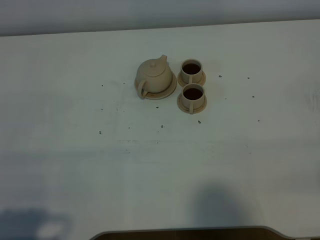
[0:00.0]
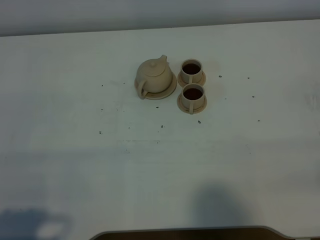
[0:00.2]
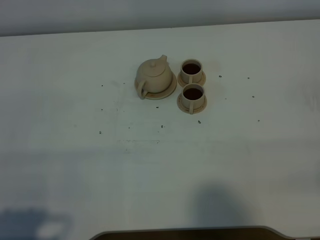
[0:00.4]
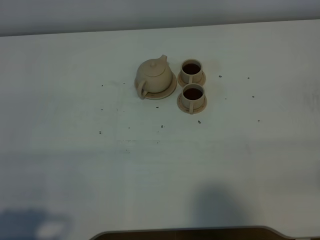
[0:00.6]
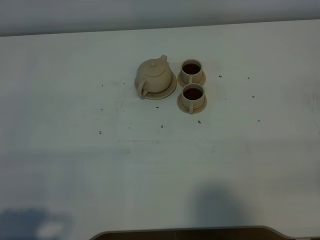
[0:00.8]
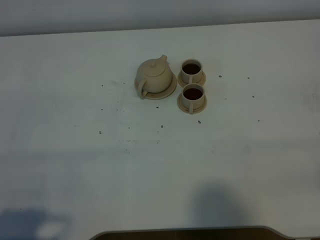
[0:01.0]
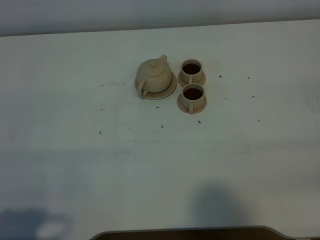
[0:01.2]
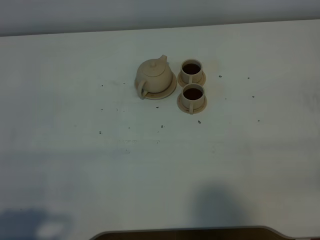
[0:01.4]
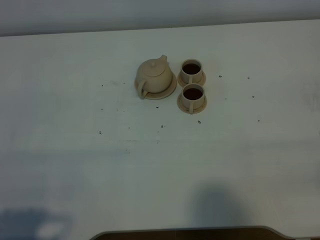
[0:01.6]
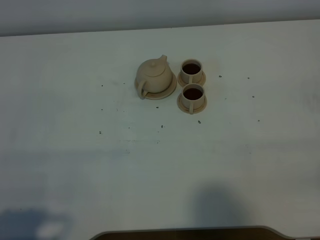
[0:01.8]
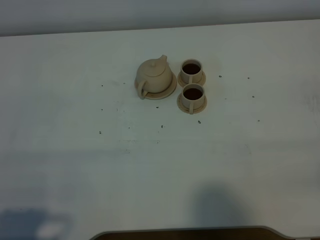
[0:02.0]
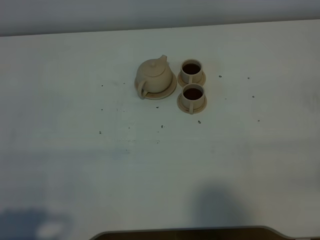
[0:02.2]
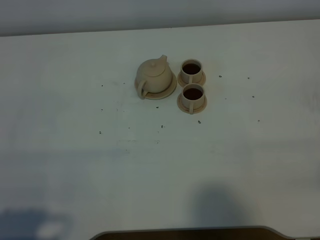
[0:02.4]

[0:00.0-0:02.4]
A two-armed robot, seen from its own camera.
Task of the whole recording: grasp the brown teapot and pour the tea into the two brown teacups one by one, put the brown teapot back in its original place.
0:00.0 to 0:02.4: Both grippers stay about where they are.

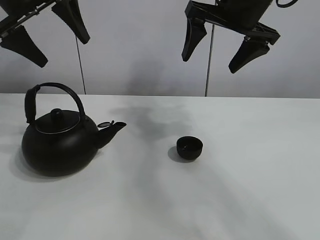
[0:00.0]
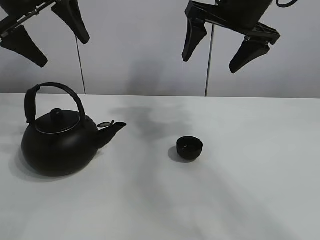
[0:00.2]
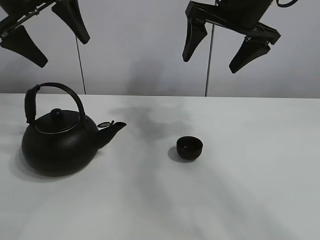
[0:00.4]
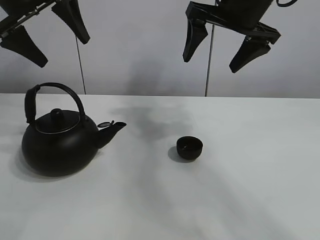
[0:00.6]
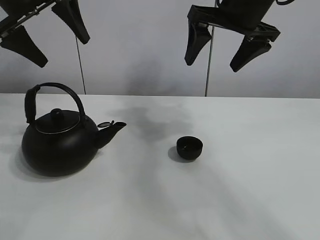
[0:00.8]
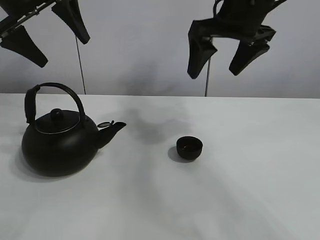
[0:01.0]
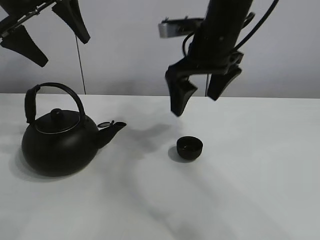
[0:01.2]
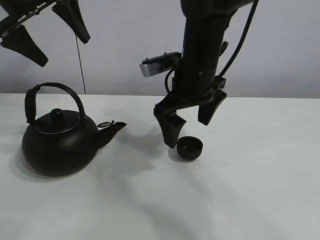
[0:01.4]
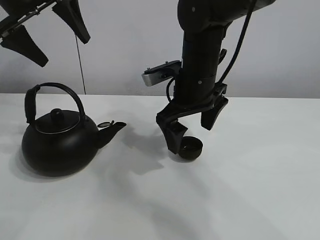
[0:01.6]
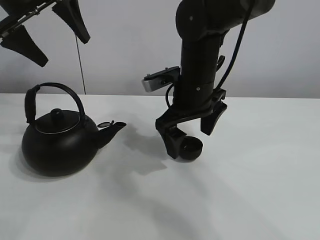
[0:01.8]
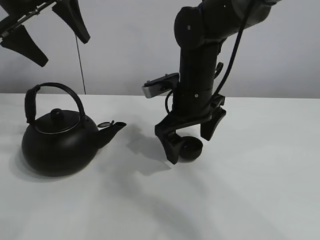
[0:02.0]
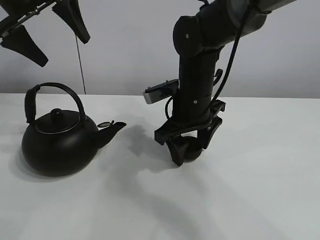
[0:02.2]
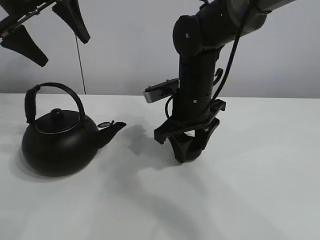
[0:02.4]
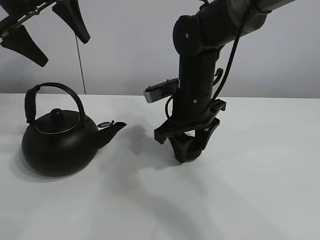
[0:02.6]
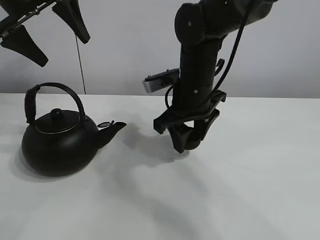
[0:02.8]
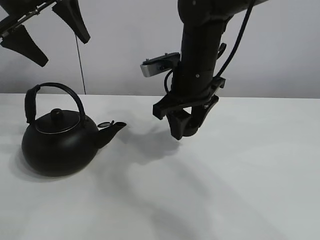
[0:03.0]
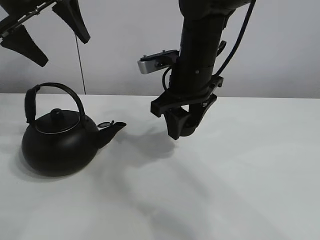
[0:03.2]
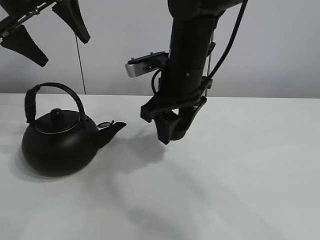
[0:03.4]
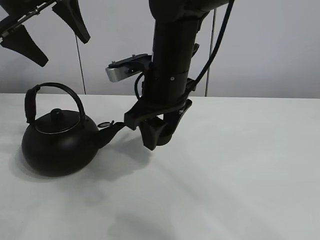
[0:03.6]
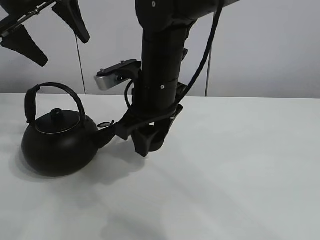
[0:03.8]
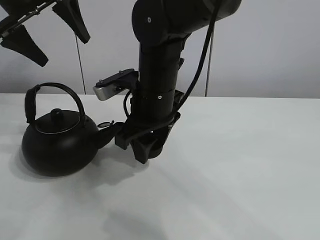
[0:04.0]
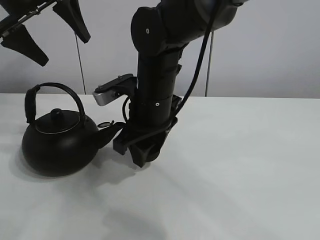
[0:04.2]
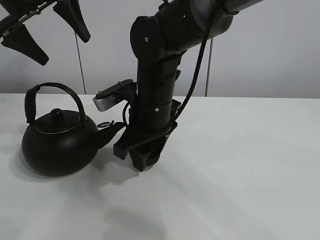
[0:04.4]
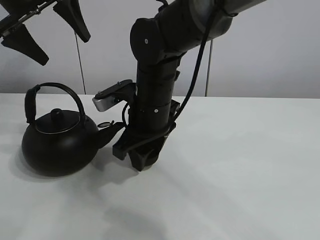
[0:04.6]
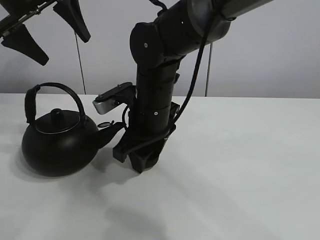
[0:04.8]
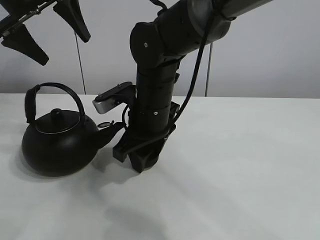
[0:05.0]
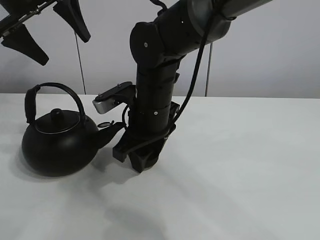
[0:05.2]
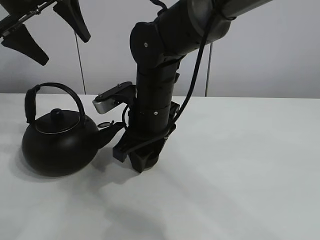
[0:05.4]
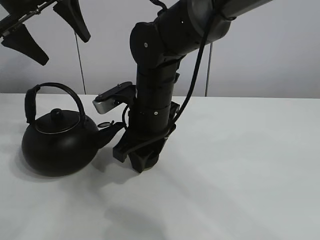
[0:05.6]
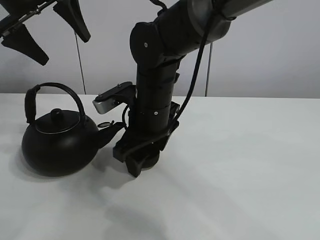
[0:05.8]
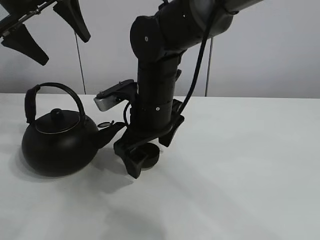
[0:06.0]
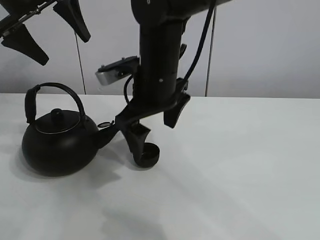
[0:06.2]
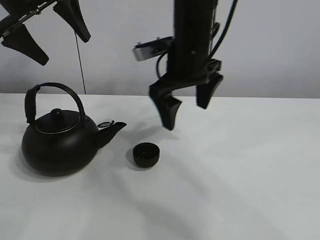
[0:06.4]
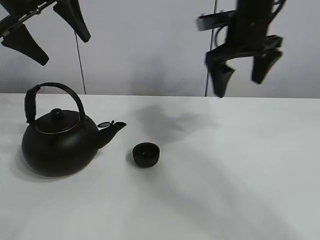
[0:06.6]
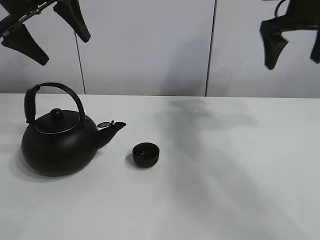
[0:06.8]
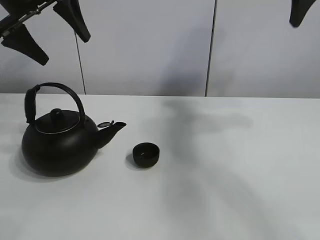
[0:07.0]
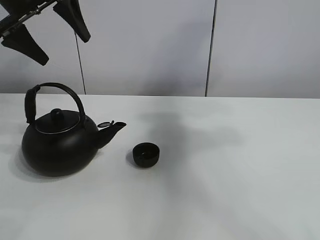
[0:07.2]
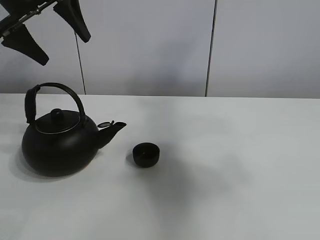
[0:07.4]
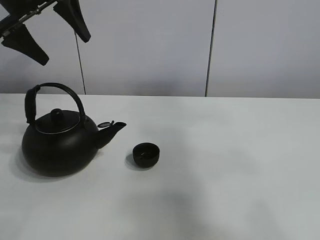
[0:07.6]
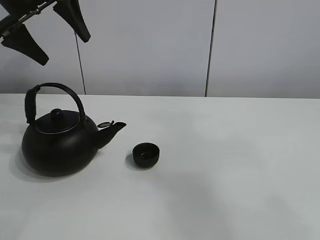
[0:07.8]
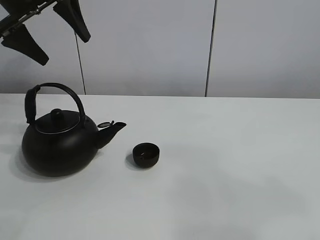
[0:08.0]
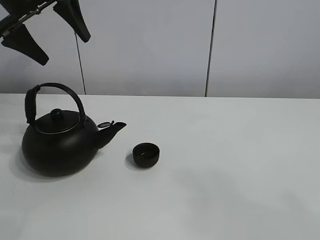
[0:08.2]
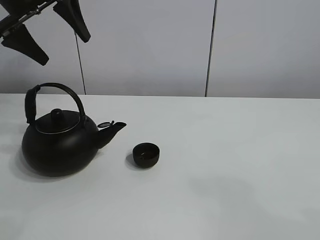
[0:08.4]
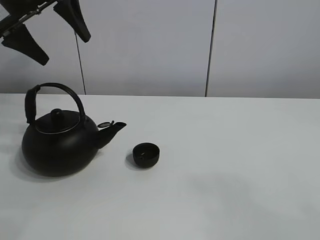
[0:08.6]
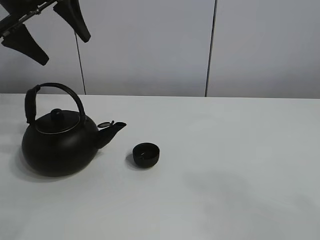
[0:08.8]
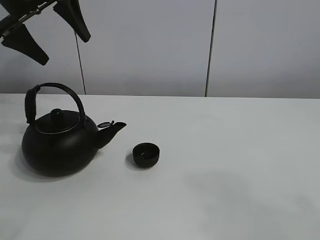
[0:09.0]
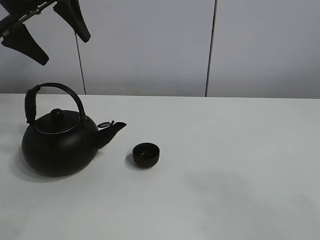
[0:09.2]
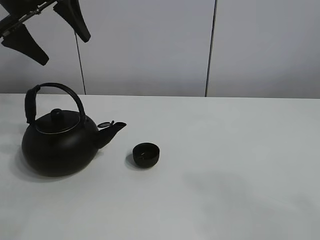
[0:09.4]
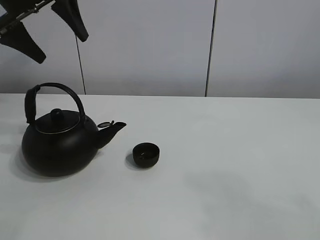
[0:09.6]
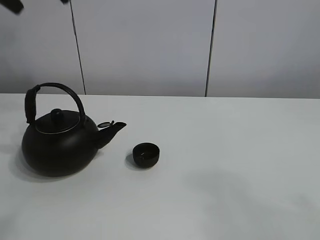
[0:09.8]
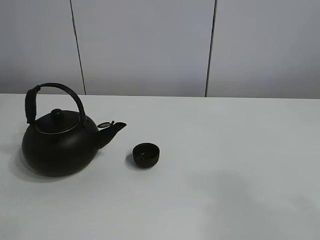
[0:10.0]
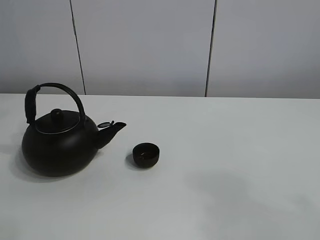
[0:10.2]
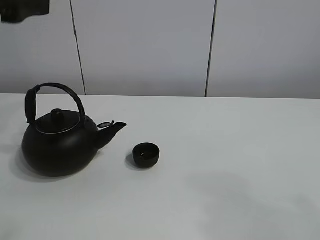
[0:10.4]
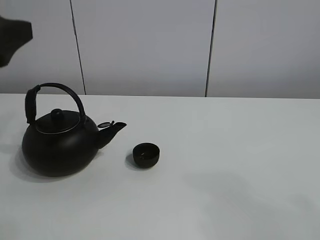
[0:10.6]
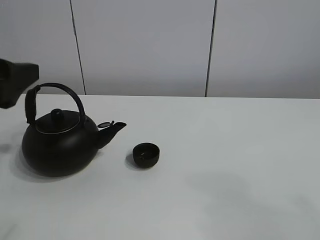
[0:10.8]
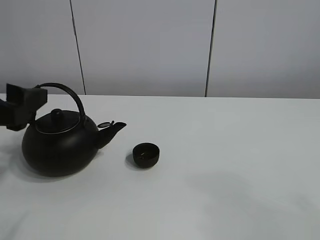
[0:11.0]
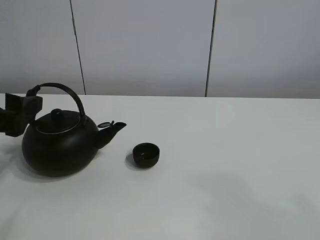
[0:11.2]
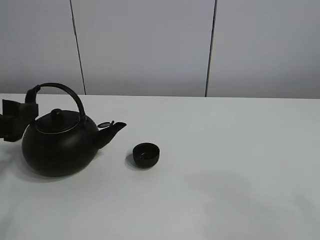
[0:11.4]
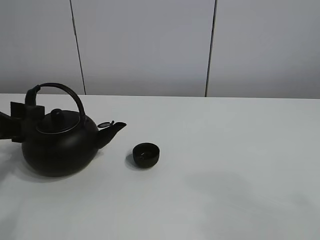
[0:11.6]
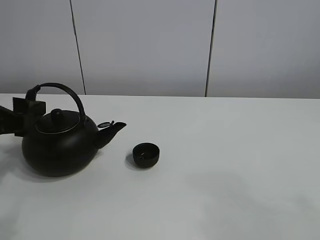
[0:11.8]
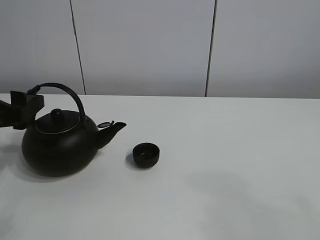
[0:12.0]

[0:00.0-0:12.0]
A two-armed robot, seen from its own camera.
Task of the whole recording: pour tea into the teacup.
Step, 0:00.0 to 0:02.6: Pick up the teacup with the right gripper.
Step, 0:02.8 to 0:05.6: Place the teacup in the center of view with the right gripper.
0:01.6 to 0:03.0: The right gripper closes.
0:03.0 to 0:04.4: The right gripper goes roughly 5 cm to the left.
0:04.4 to 0:06.0: The right gripper opens its fingers.
0:06.0 to 0:07.6: The right gripper goes about 50 cm upward, to the right and backward.
0:07.6 to 0:09.0: The right gripper shifts some 20 cm downward and backward.
0:09.0 to 0:10.4: The left gripper shifts approximately 15 cm backward.
0:10.4 to 0:12.0: The left gripper shifts approximately 15 cm downward.

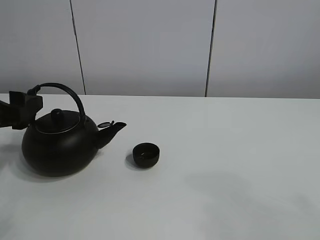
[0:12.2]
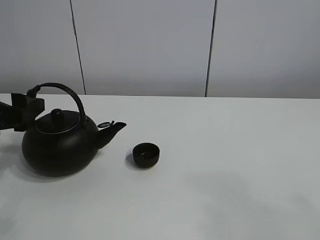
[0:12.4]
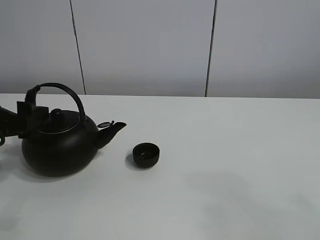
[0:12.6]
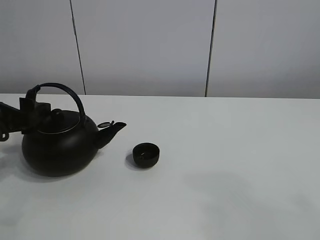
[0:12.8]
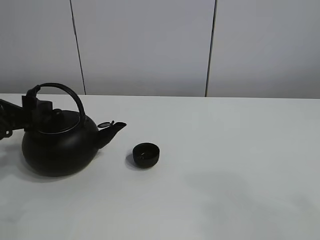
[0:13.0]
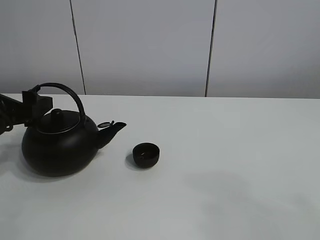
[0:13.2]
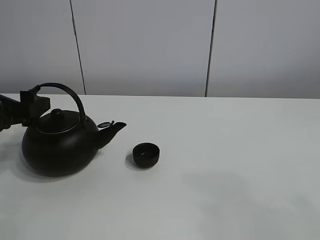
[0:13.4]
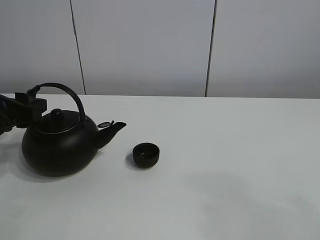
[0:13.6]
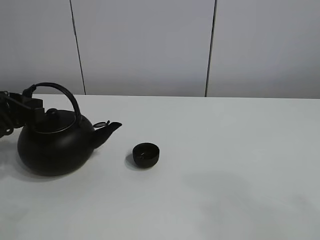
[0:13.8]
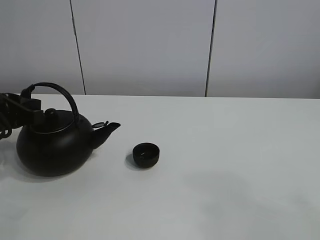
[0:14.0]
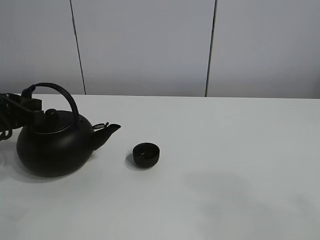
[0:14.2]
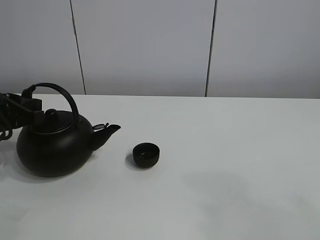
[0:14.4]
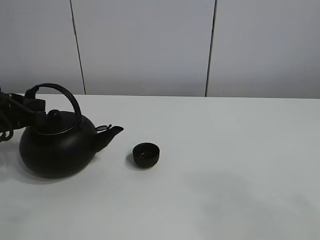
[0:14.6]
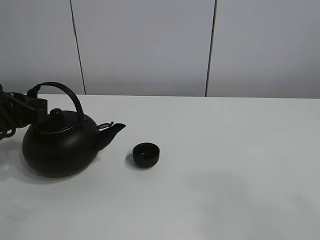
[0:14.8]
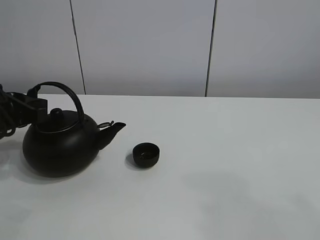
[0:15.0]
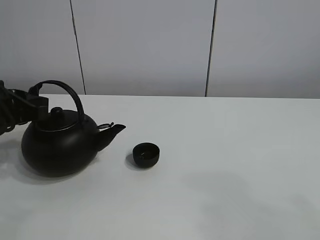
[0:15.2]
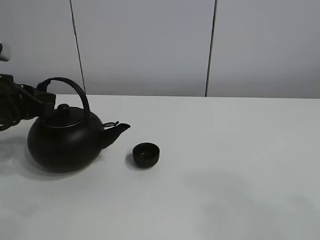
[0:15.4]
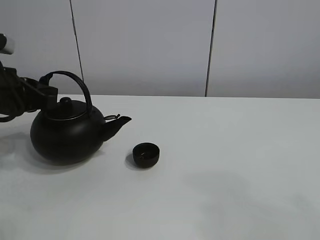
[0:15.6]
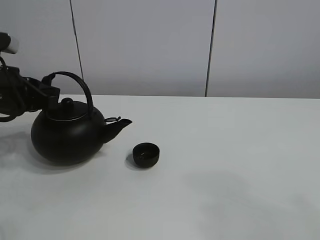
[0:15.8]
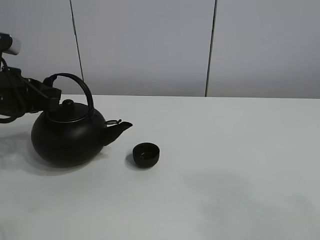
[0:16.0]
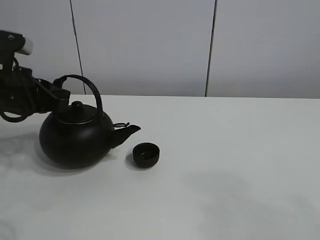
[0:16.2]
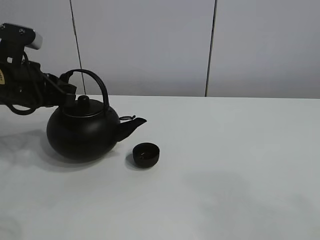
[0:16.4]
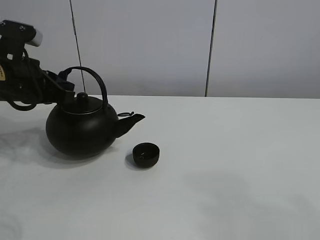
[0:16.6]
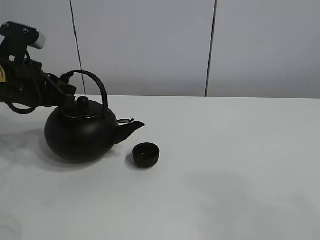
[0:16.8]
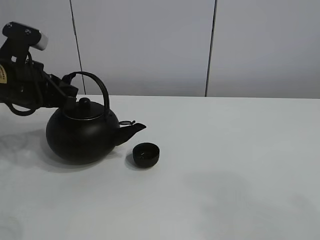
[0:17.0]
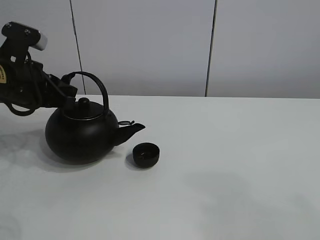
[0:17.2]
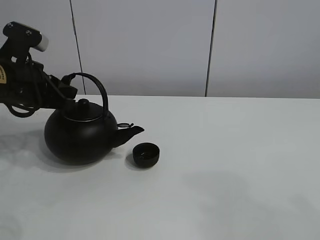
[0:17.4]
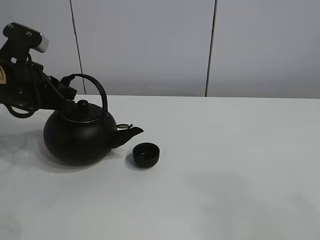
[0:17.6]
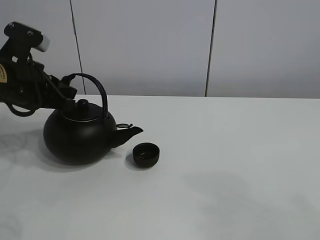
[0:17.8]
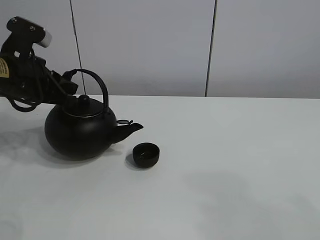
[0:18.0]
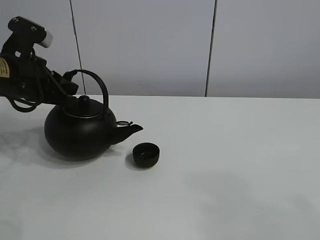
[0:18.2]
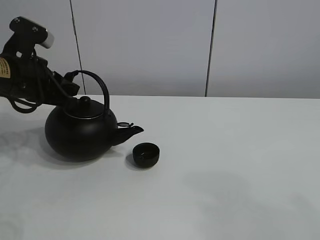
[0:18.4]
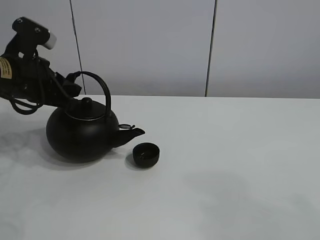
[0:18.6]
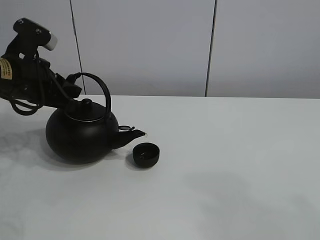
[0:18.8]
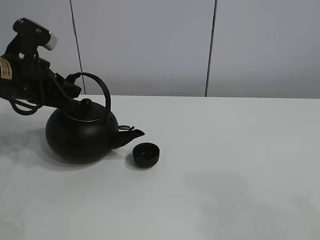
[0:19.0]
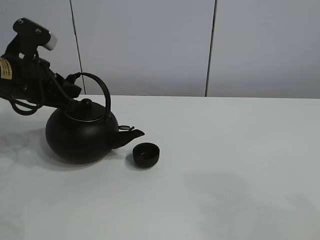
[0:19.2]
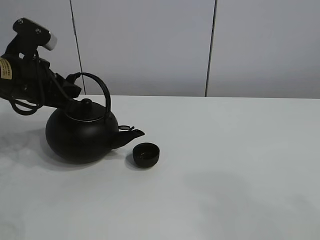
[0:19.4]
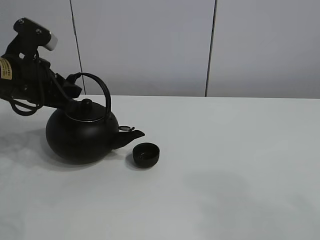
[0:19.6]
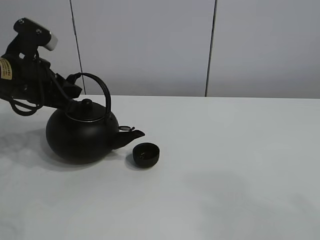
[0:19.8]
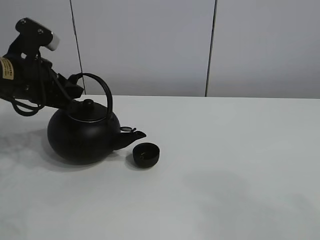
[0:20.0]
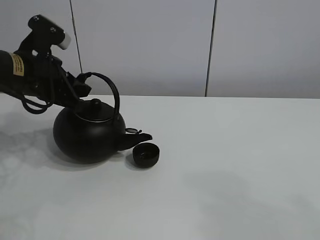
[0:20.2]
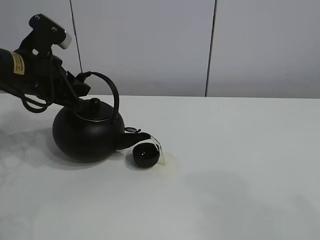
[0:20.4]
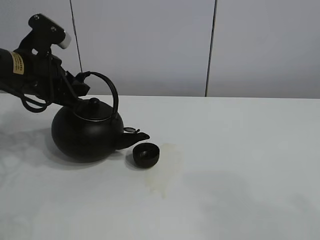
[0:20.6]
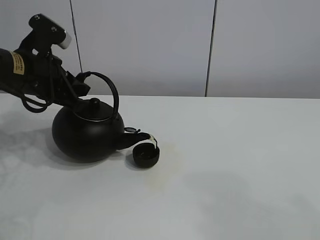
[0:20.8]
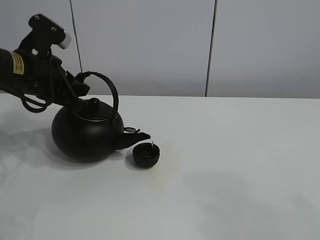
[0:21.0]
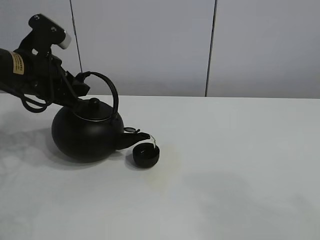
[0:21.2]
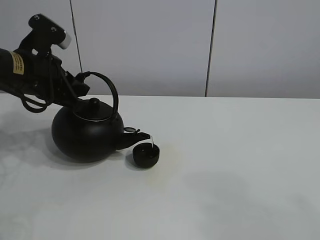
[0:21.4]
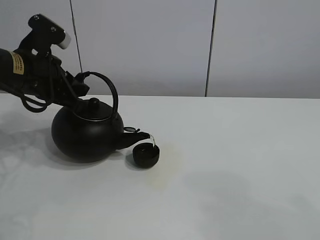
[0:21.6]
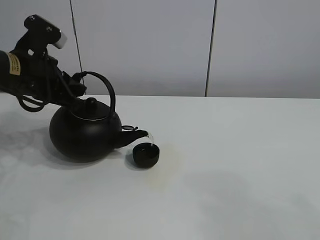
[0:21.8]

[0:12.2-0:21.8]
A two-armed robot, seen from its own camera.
Task of the whole recording: pour tea into the teacup.
Step, 0:12.2 to 0:15.4: Pick up the teapot with the left gripper.
0:12.2 to 0:13.8: The left gripper closes its fingers.
0:13.8 to 0:15.4: The grippers stay close to where they were, moving slightly.
0:15.4 to 0:18.6: The grippers stay close to where they were, moving slightly.
0:18.6 to 0:20.2: There are only small adjustments of the grippers.
0:20.2 to 0:21.8: Both grippers stay about where they are.
